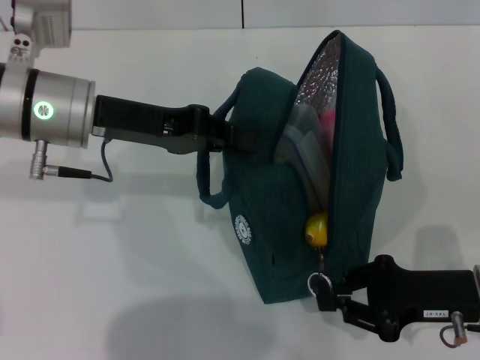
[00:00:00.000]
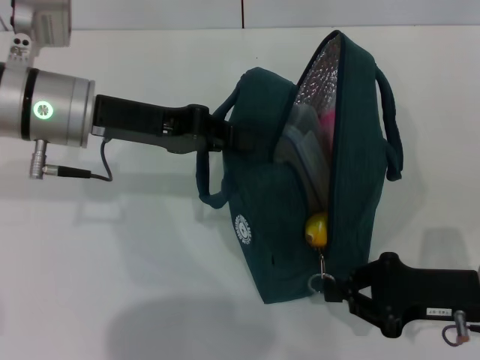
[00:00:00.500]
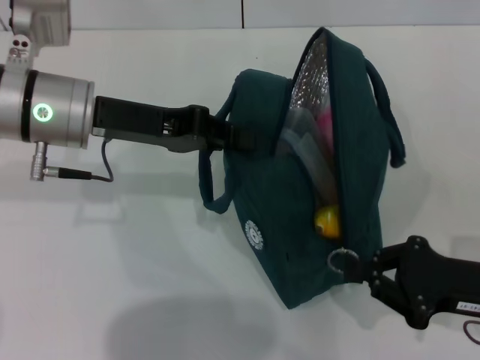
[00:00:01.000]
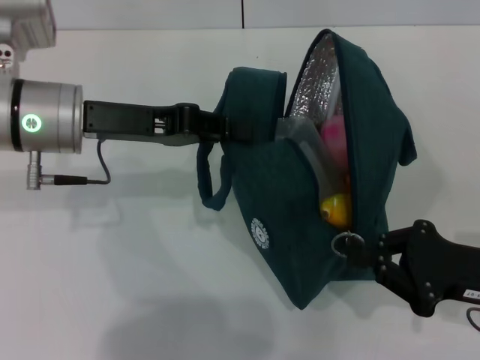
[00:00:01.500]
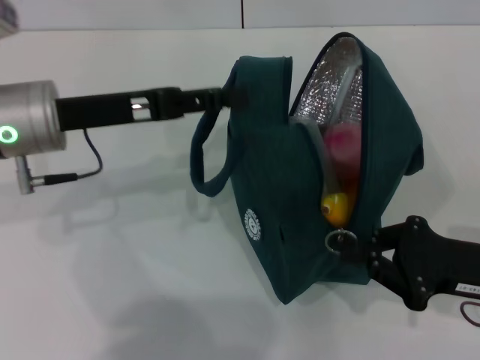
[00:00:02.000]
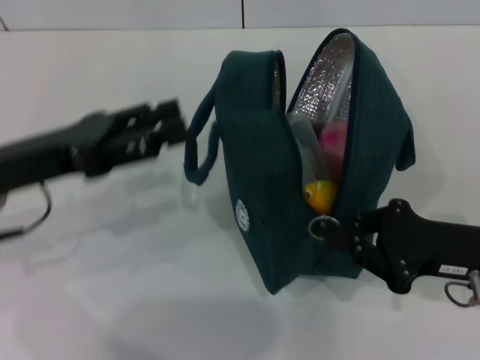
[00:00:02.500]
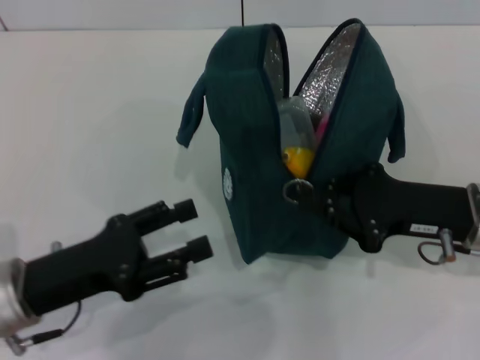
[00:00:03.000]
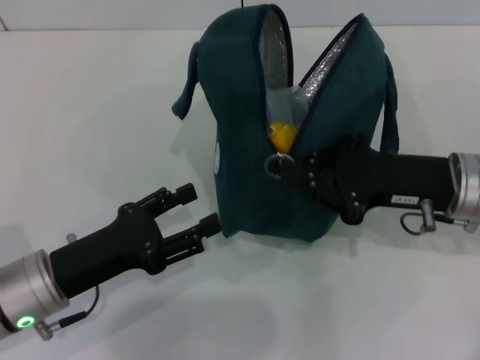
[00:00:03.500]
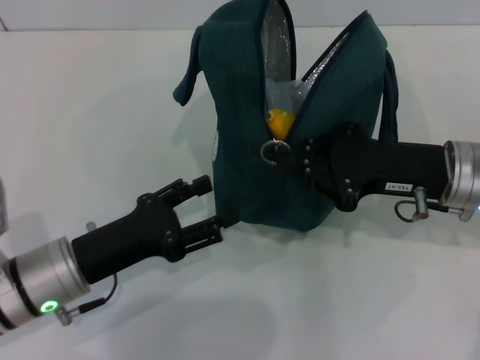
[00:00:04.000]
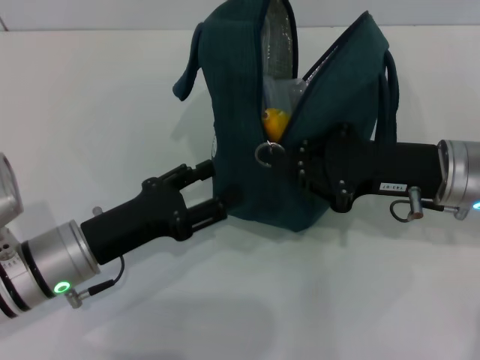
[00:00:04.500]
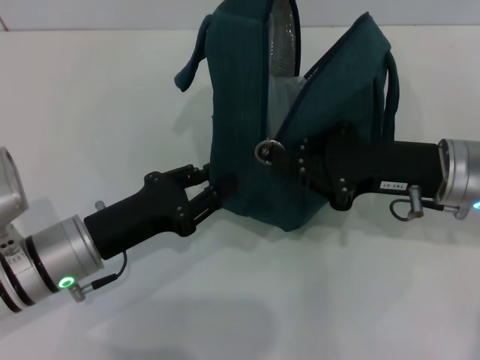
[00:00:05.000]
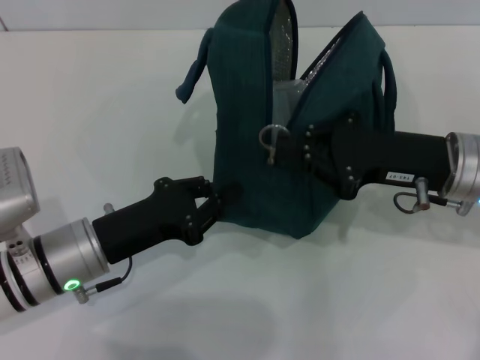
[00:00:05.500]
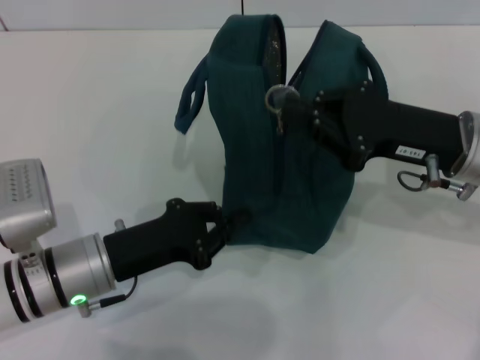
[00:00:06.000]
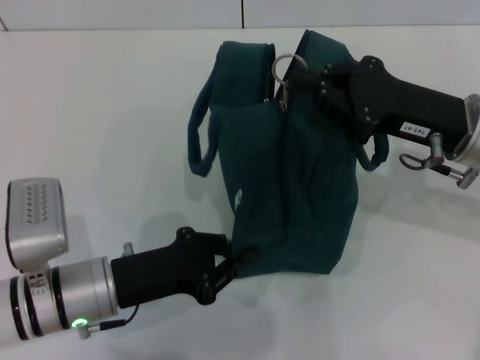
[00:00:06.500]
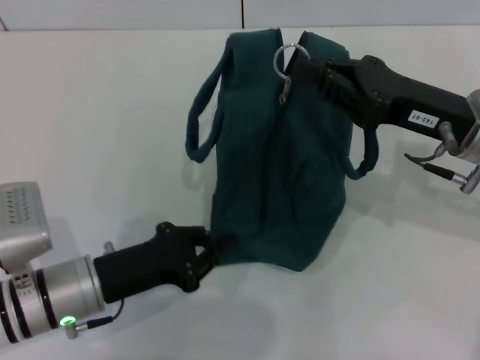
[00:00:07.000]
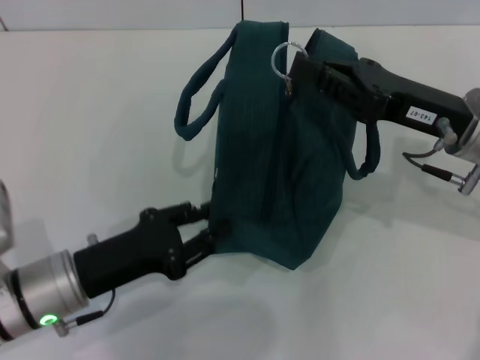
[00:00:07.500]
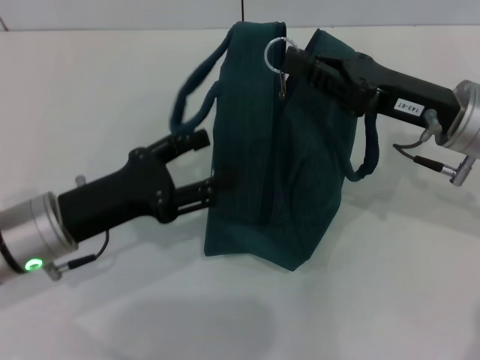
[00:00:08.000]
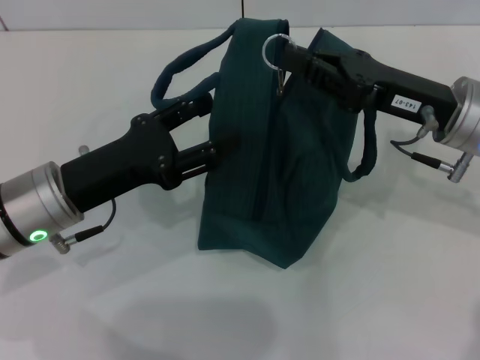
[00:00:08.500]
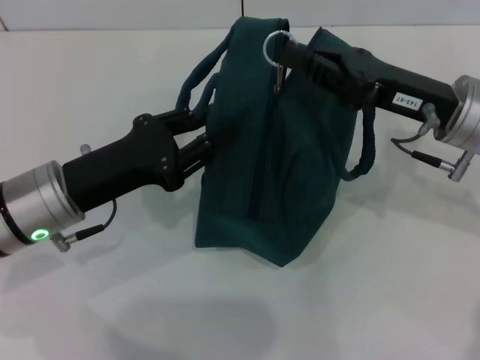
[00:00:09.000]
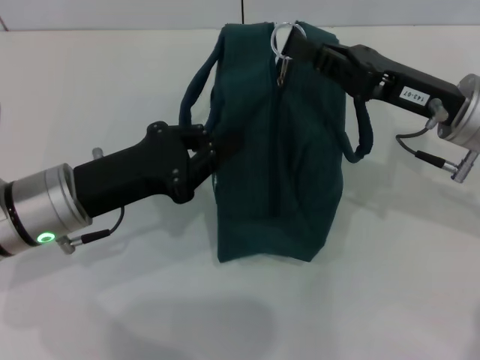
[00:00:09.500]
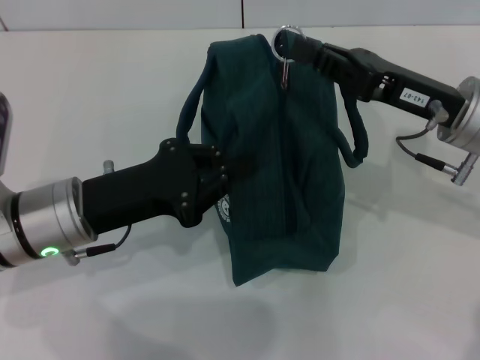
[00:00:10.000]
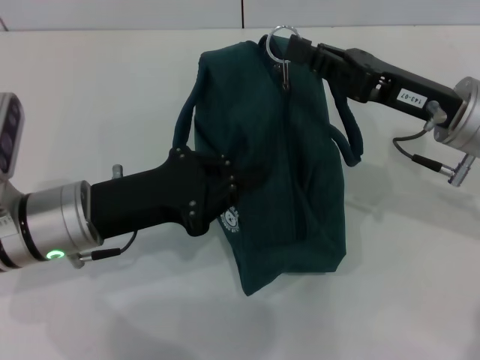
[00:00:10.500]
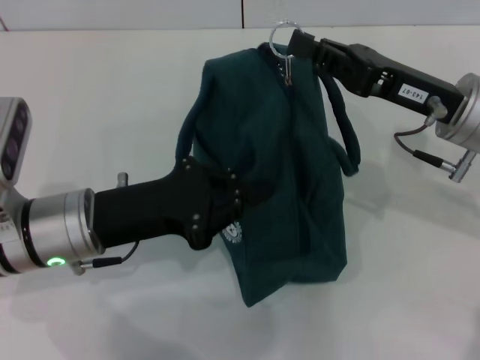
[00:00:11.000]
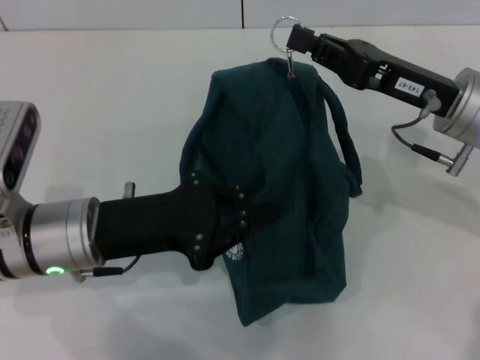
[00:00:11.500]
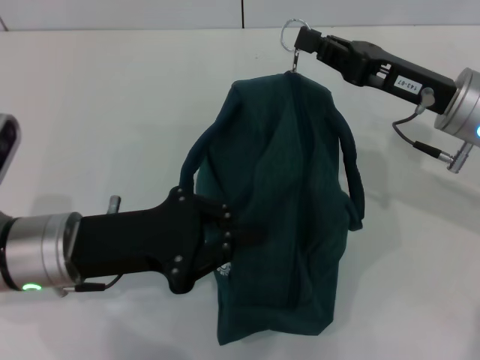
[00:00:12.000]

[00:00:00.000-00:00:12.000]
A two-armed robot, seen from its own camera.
Step, 00:00:00.000 to 00:00:02.000: Hold the lunch bag with your left hand.
00:00:00.000 to 00:00:02.000: The left gripper opens its fingers. The right gripper closes its fingers.
00:00:02.000 to 00:00:04.000: The left gripper shifts roughly 15 cm downward and backward, and opens its fingers. Meanwhile the right gripper goes about 10 cm forward and to the left.
00:00:04.000 to 00:00:06.000: The left gripper closes its fingers.
00:00:06.000 to 00:00:08.000: The left gripper opens up.
00:00:08.000 to 00:00:10.000: The left gripper closes its fingers.

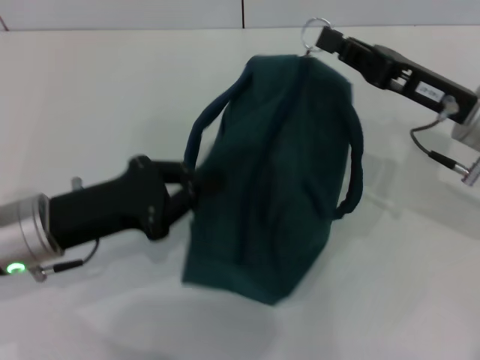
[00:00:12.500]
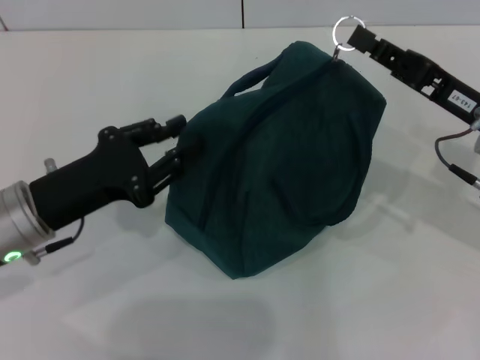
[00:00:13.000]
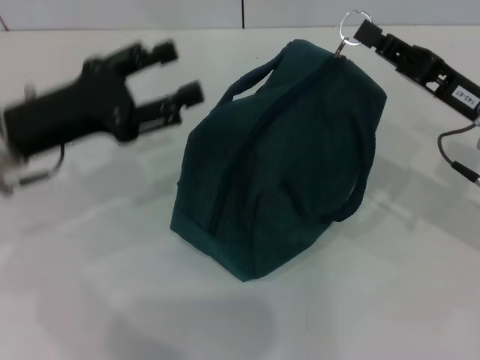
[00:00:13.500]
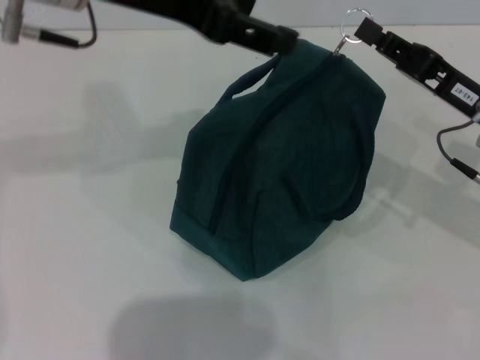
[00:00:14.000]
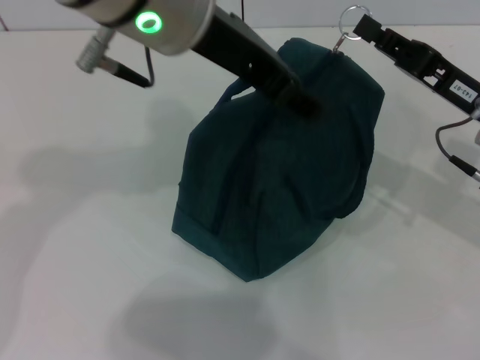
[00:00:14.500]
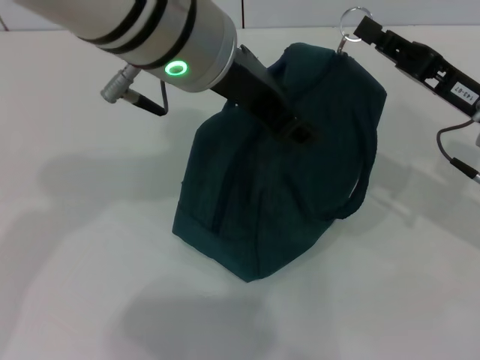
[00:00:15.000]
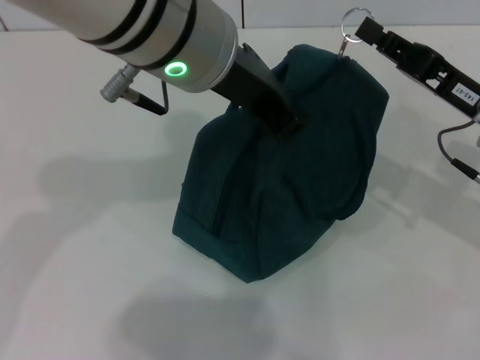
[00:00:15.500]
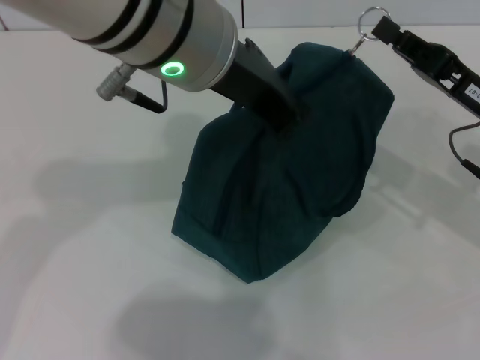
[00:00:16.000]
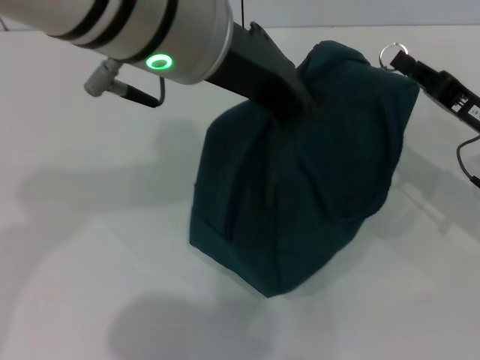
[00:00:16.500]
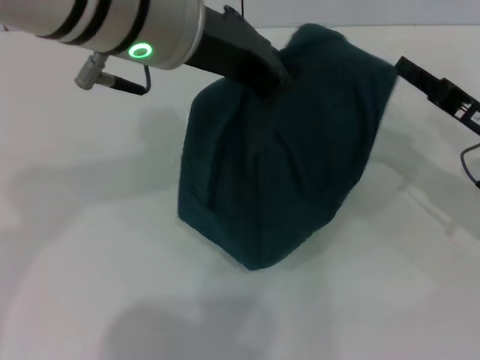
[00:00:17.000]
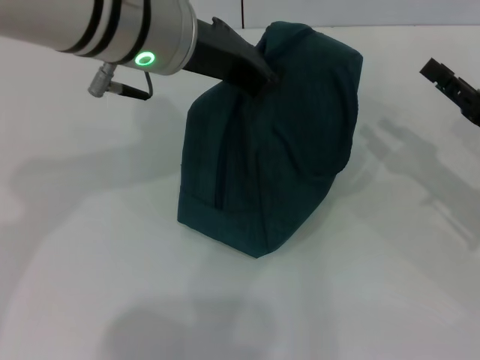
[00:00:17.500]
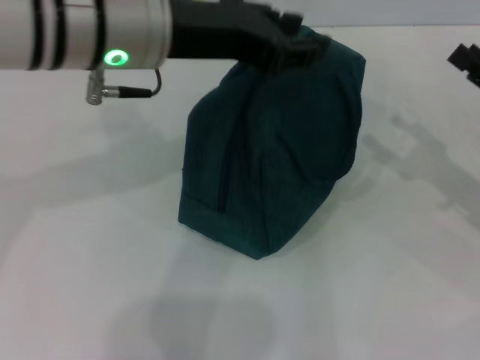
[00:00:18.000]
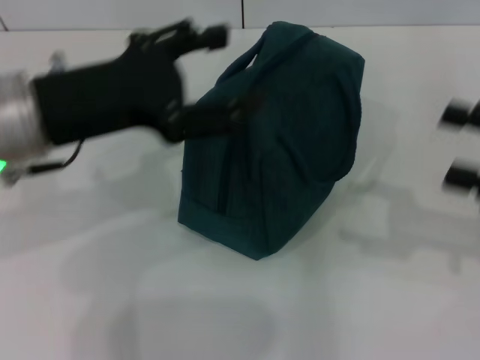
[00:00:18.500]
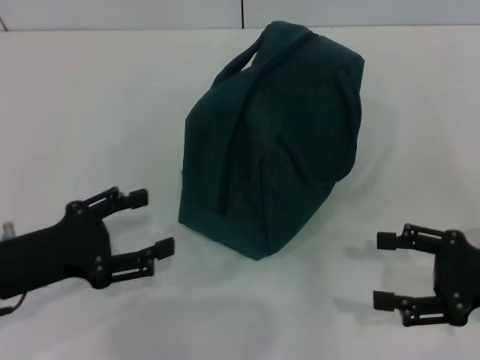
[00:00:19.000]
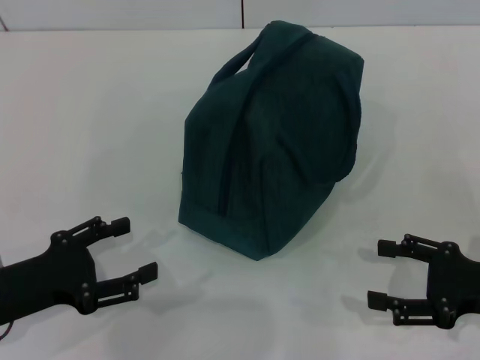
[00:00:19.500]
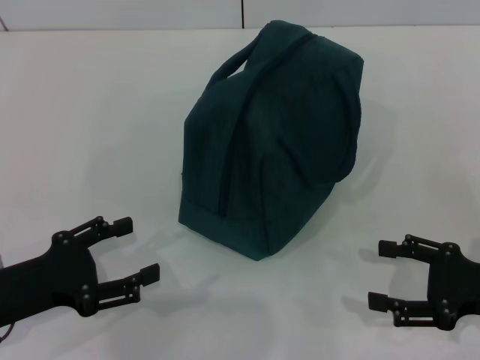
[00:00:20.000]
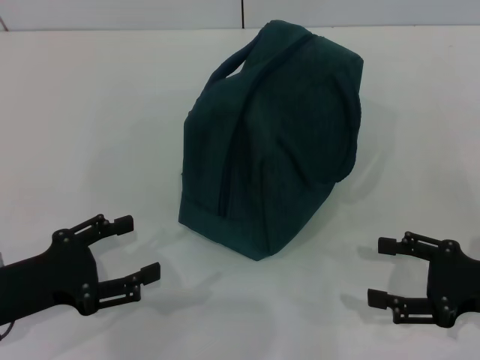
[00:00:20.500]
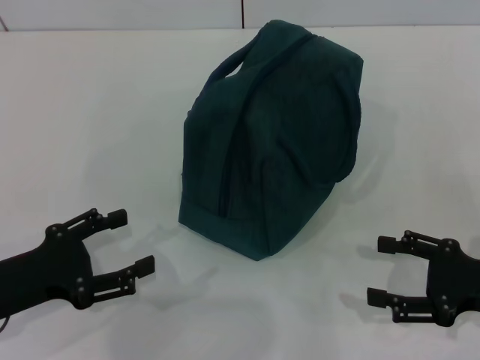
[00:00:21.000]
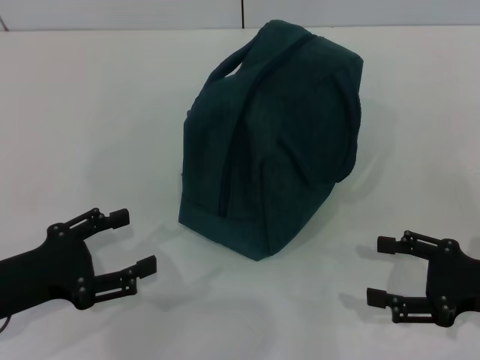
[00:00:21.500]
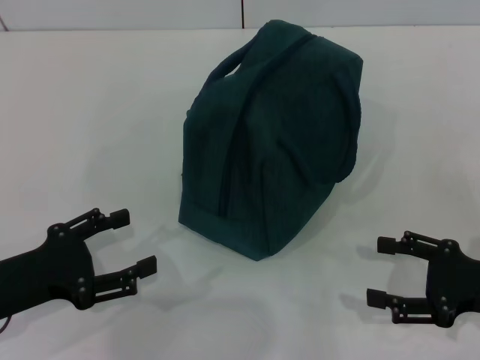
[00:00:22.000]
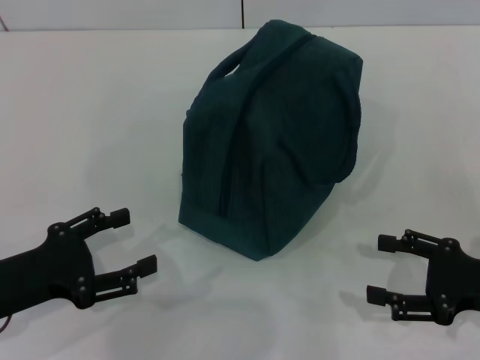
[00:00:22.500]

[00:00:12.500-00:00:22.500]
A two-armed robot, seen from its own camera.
Step, 00:00:12.500 to 00:00:17.000: Zip up the lunch bag with your right hand.
Step, 00:00:17.500 to 00:00:18.500: Hold the lunch bag with your left hand.
00:00:12.500 to 00:00:14.500: The left gripper is displaced upward and to the right by approximately 25 cm, and opens its fingers.
00:00:14.500 to 00:00:16.500: The left gripper closes up.
00:00:16.500 to 00:00:18.500: The right gripper heads backward, upward and to the right, covering some 10 cm, and opens up. Meanwhile the left gripper moves to the left and downward, roughly 15 cm, and opens.
00:00:18.500 to 00:00:20.500: The right gripper moves downward, about 10 cm; the left gripper is displaced downward, to the left and backward by about 20 cm.
00:00:20.500 to 00:00:22.500: Both grippers stay about where they are.

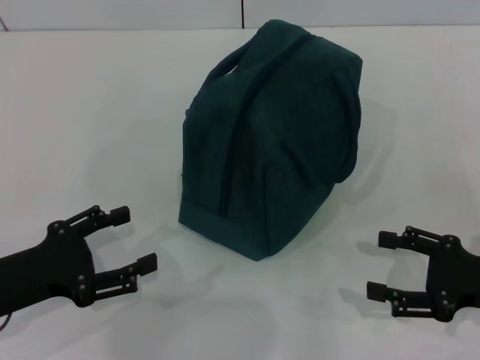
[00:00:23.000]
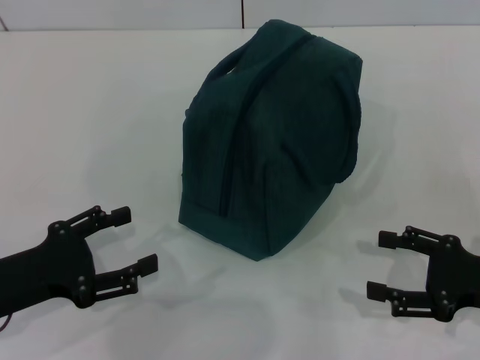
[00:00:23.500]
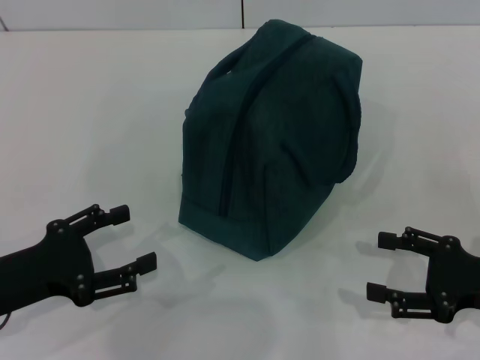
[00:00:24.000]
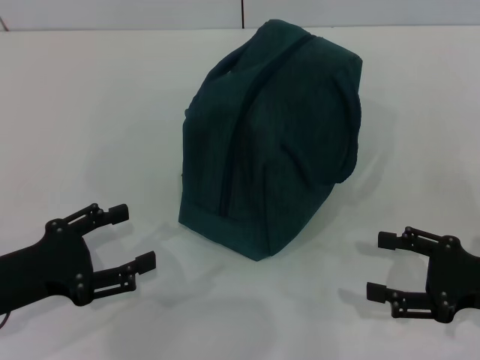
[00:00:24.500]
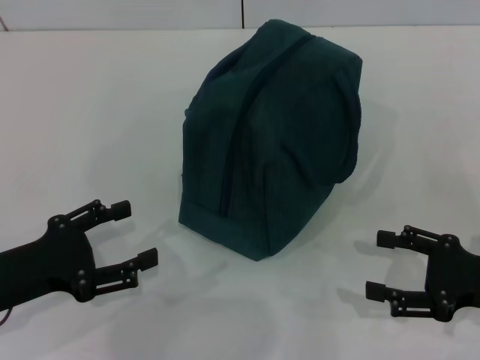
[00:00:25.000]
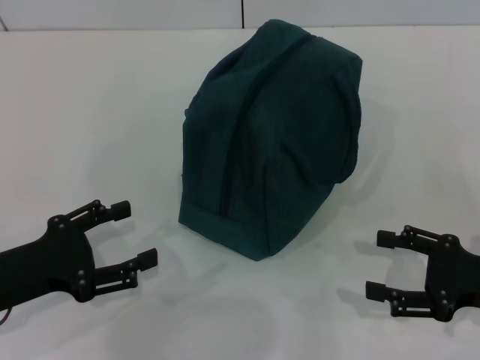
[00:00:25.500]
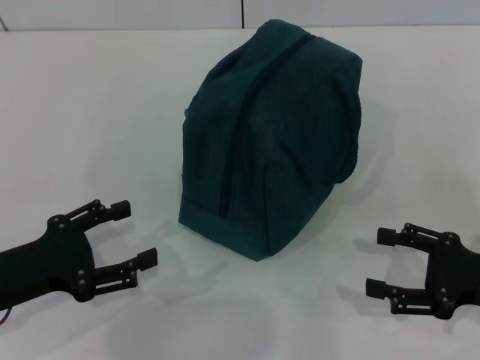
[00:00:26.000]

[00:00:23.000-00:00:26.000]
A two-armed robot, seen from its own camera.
00:00:23.000 to 00:00:26.000: Both grippers stay about where they are.
